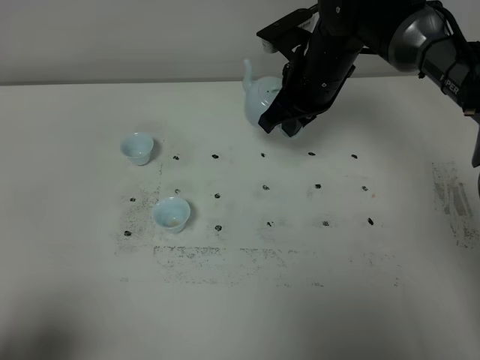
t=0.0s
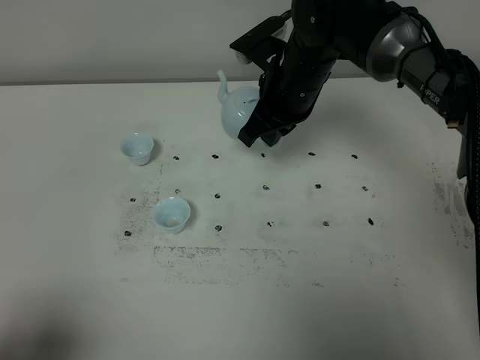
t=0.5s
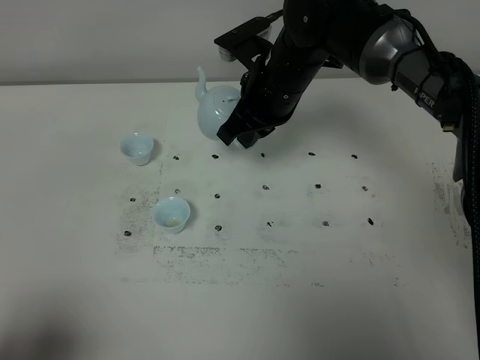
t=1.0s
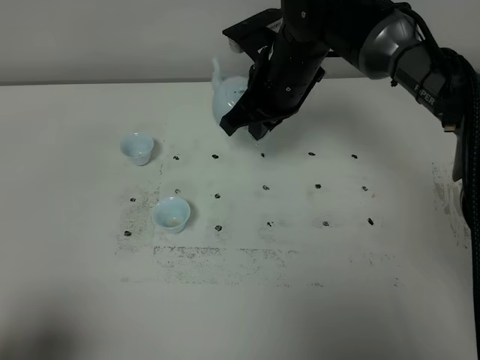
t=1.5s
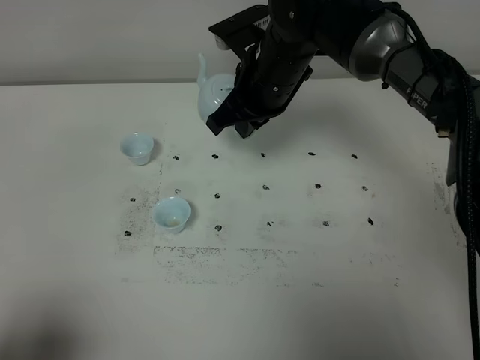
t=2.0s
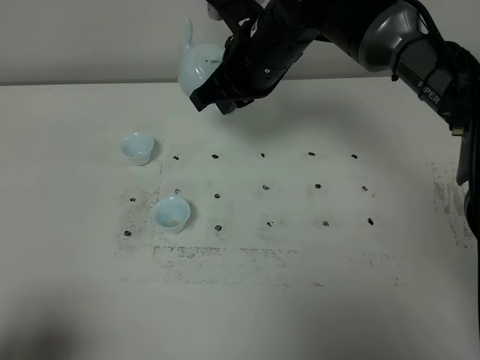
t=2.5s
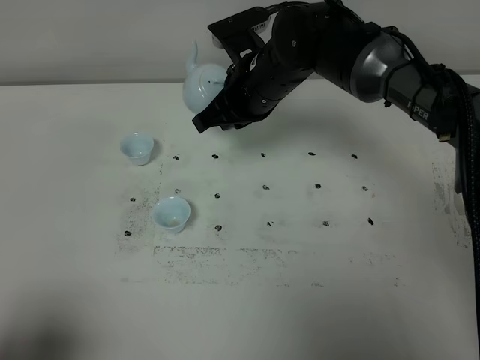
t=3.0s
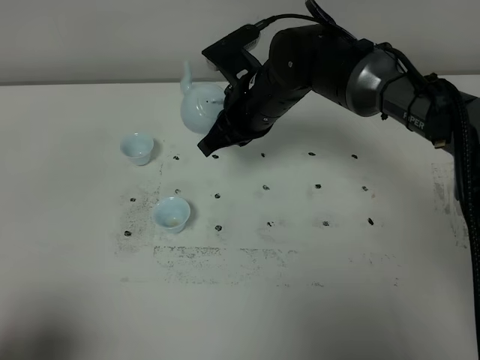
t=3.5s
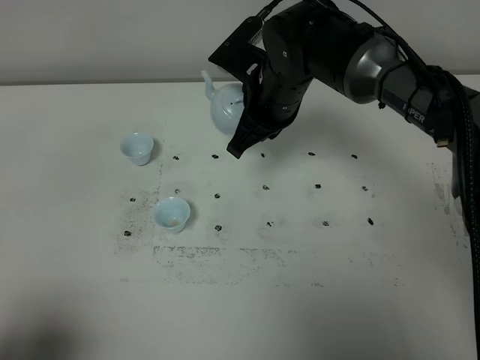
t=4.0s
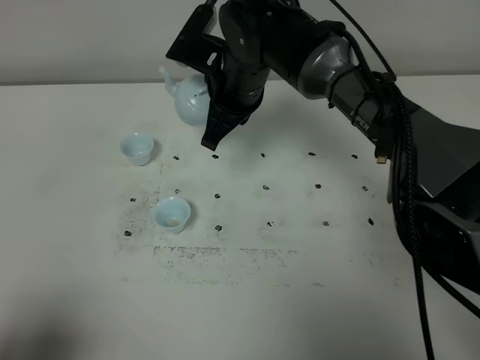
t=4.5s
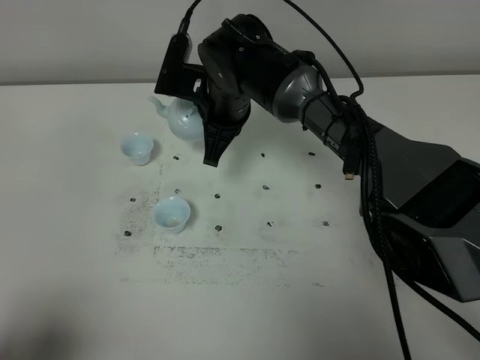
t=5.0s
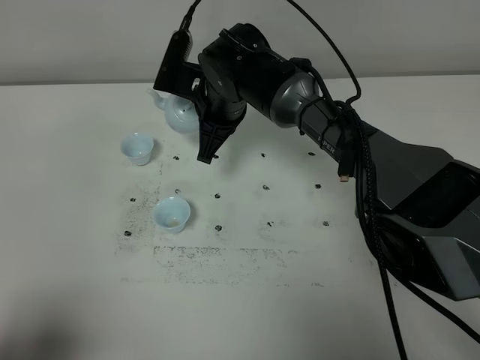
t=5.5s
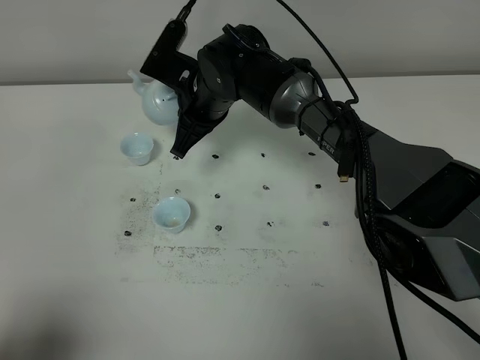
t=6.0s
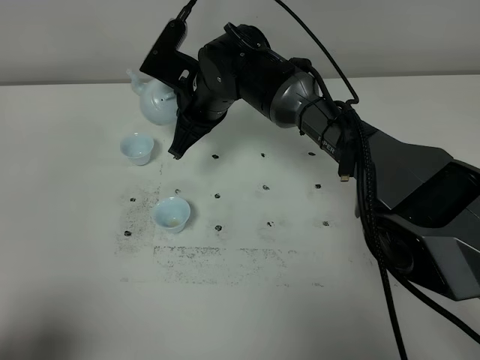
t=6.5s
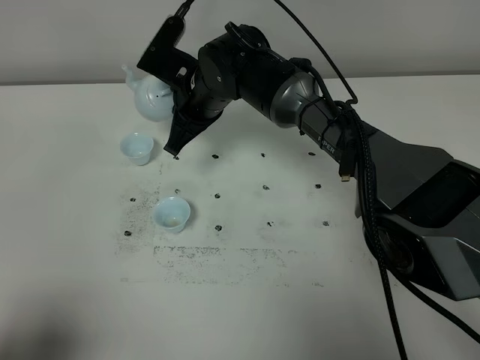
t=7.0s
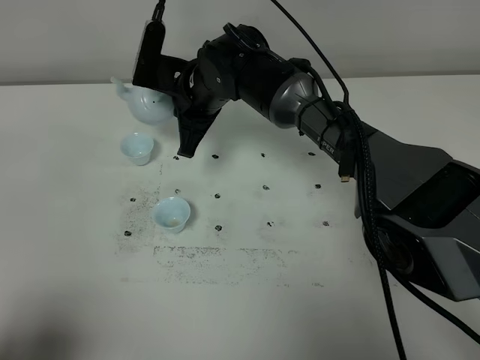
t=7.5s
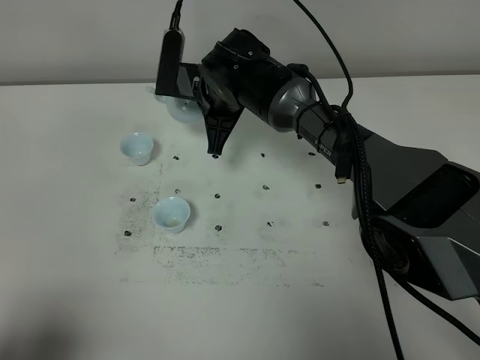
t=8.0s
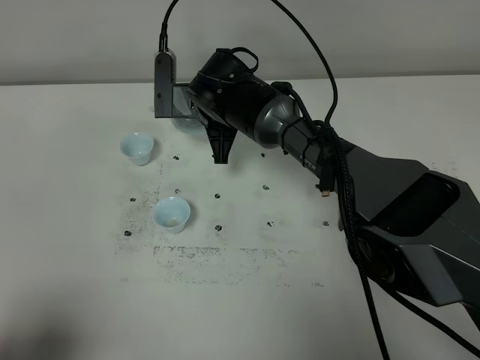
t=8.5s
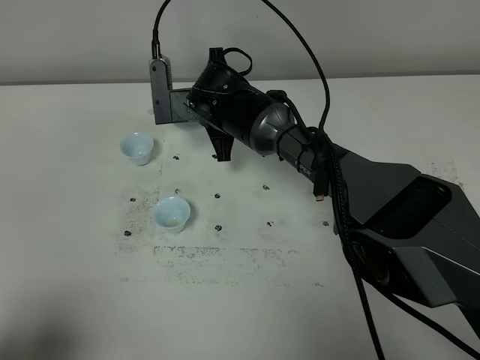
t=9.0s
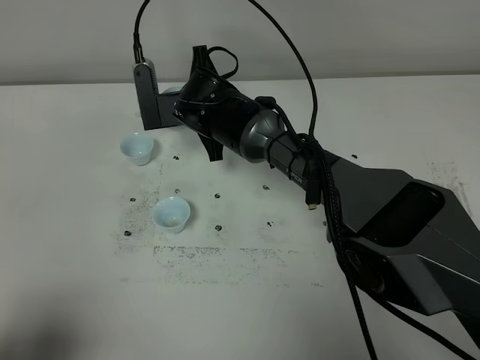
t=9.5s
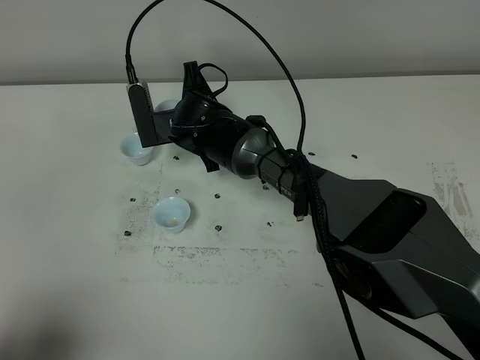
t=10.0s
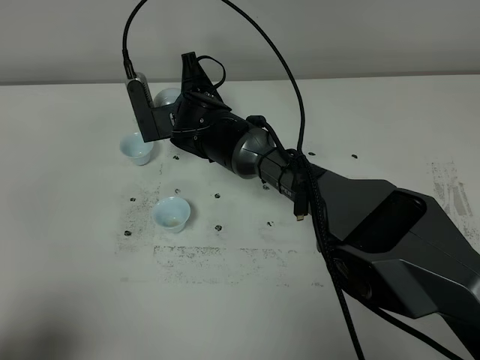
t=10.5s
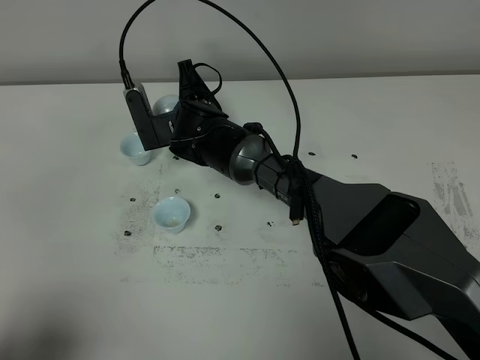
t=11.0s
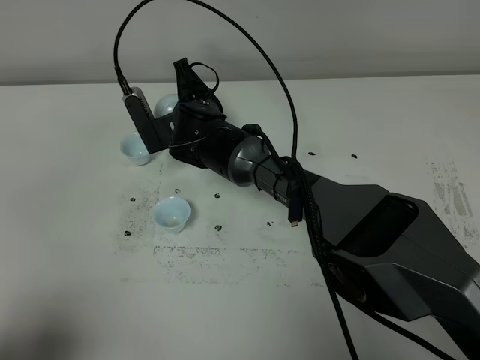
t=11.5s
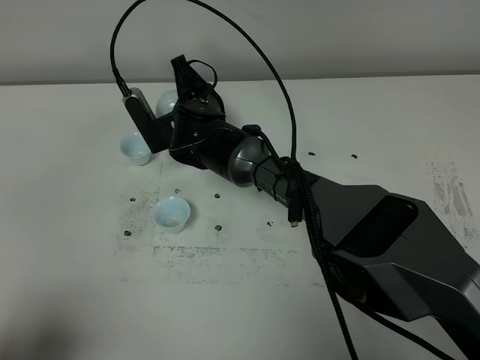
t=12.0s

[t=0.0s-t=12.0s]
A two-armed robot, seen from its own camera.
Task of the whole recording: grasp the blue porcelain teapot and pour the tea into the two blue porcelain teacups one by one, put the blue porcelain teapot back in its original place.
t=0.0s to t=2.0s: The right gripper travels to the left by approximately 5 cm.
t=2.0s to t=4.0s: The grippers stay close to where they were, moving slightly.
t=4.0s to t=6.0s: The right gripper moves to the left, approximately 10 cm.
t=8.0s to t=10.0s: The right gripper travels downward by some 5 cm.
t=10.0s to t=12.0s: The grippers make only small movements.

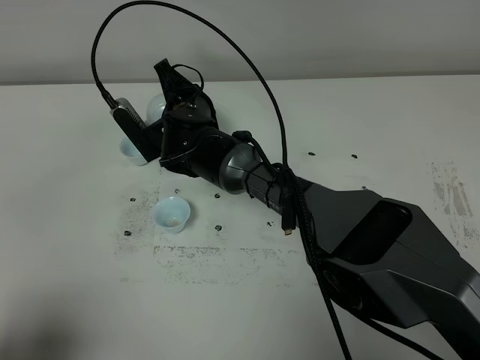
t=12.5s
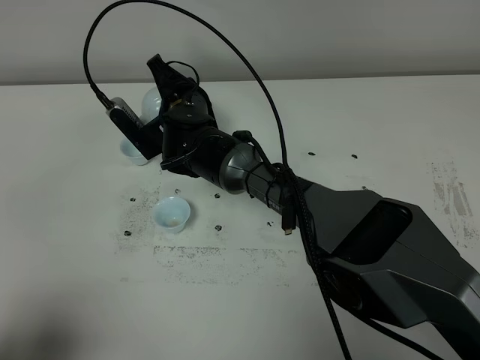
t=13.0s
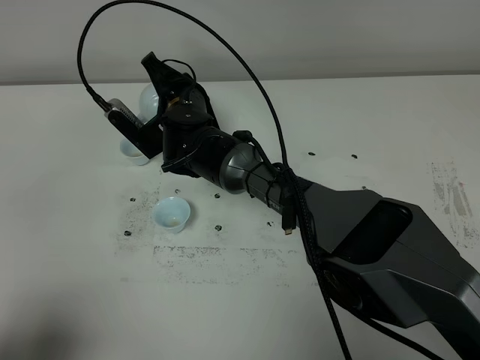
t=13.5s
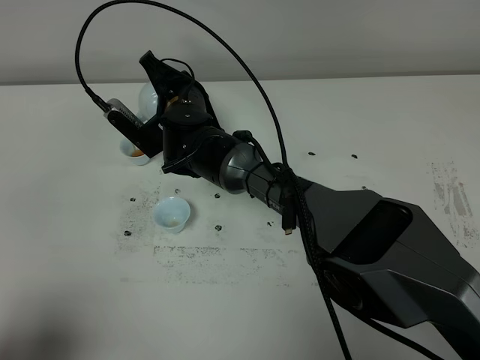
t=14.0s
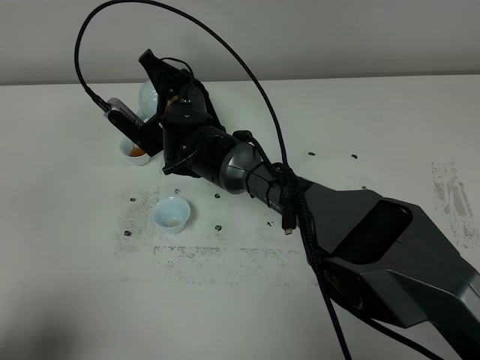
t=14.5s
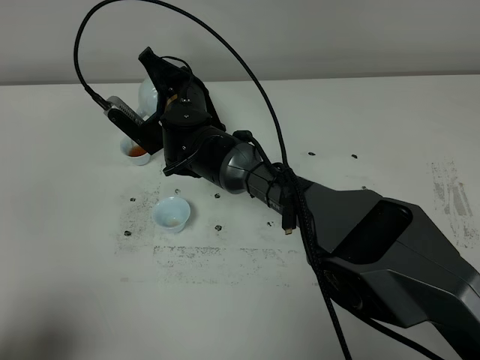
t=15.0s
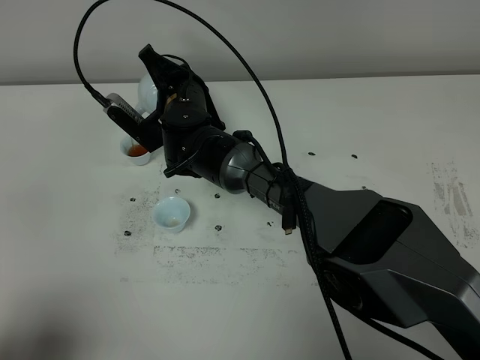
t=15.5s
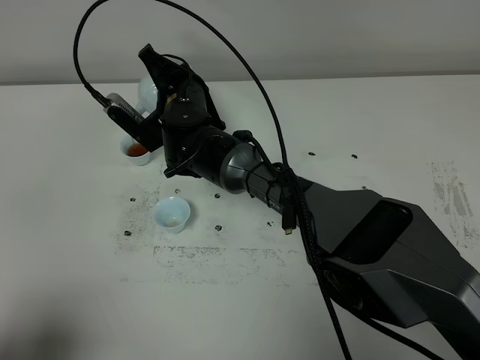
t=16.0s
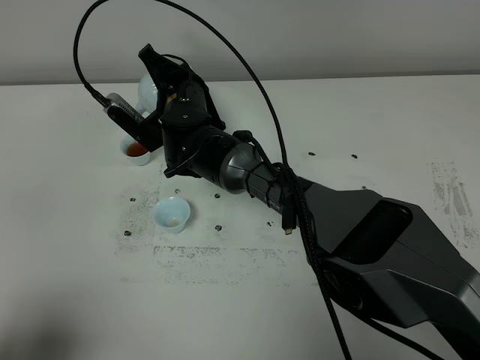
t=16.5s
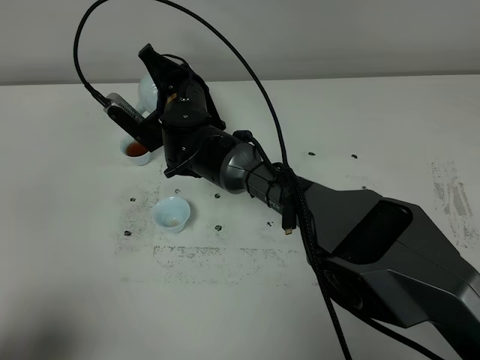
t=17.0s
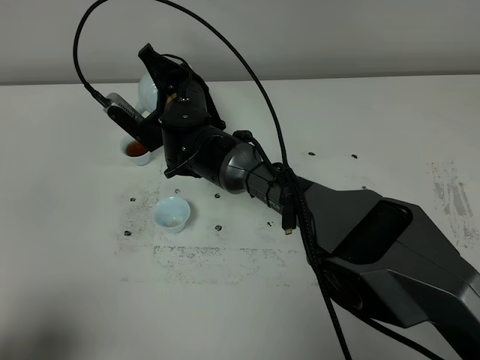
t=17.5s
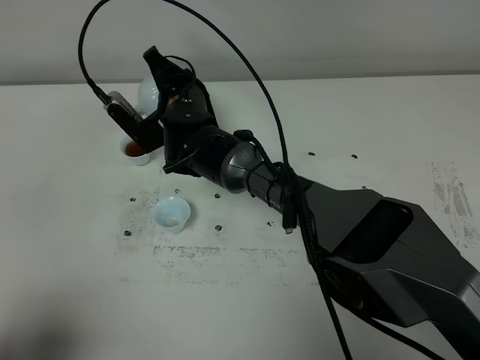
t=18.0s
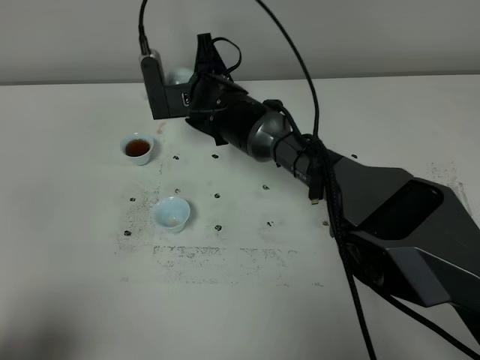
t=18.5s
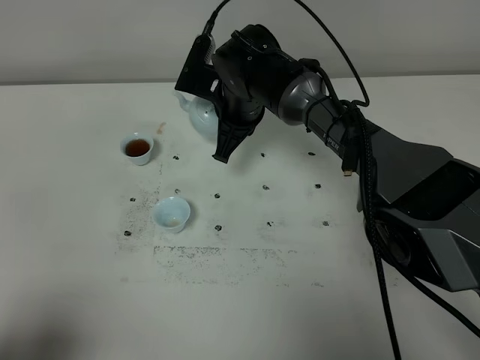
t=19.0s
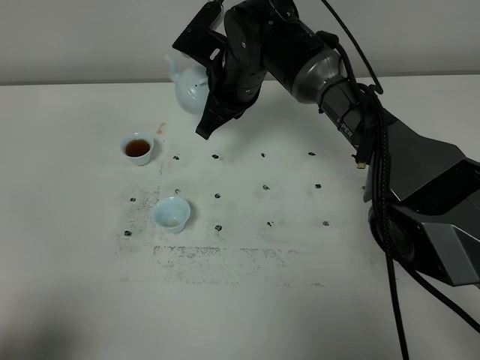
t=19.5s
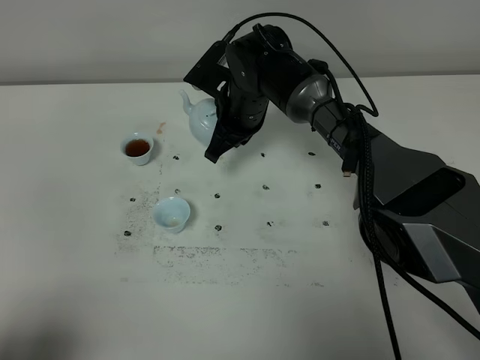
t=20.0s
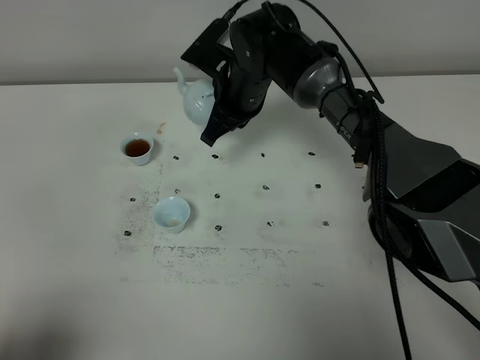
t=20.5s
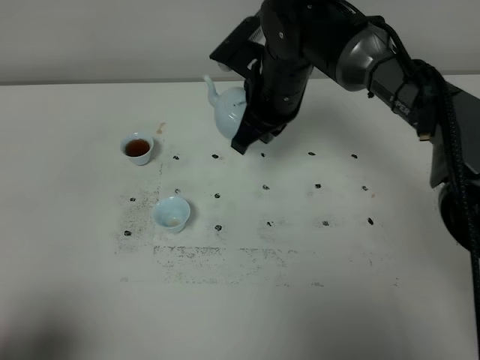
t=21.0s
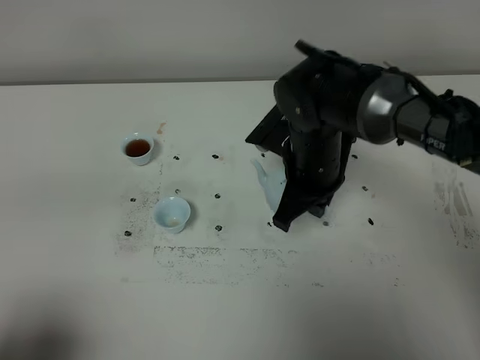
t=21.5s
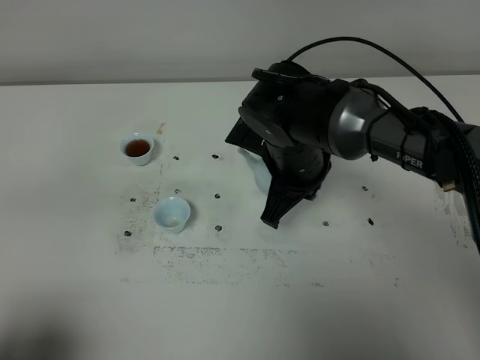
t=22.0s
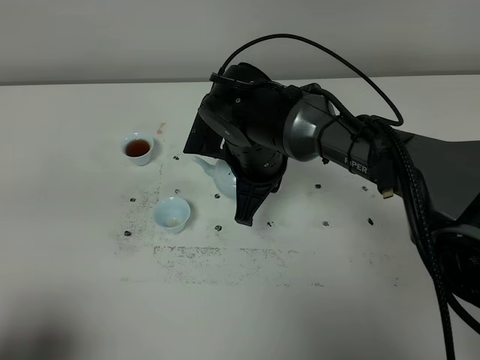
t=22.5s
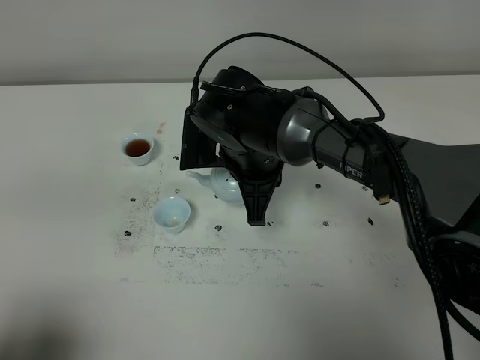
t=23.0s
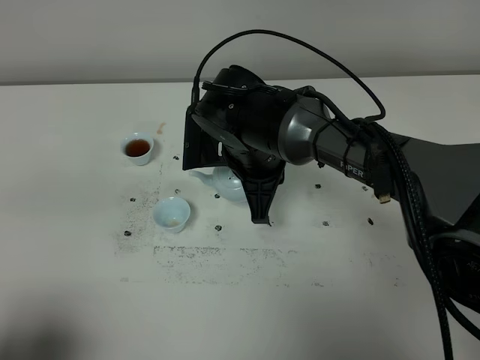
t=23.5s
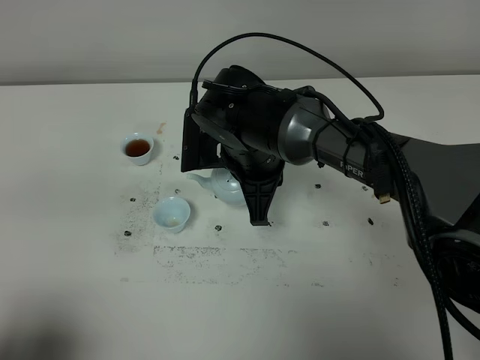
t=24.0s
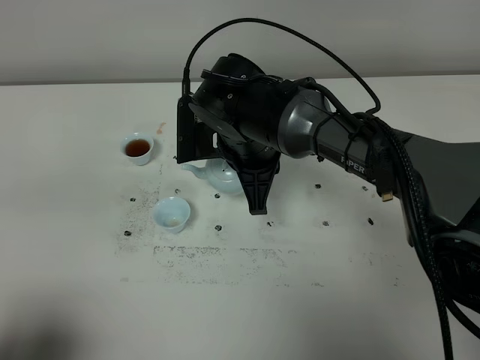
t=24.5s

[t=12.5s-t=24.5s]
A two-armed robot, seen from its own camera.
Task of the whole recording: grasp the blue porcelain teapot and pour the tea into the two blue porcelain teacups one by one, put the blue porcelain teapot back in its original place.
t=12.5s to t=14.5s: The grippers stay close to where they were, moving slightly.
t=14.5s to t=16.5s: Both grippers stay put.
t=18.5s to t=20.5s: The right gripper goes up and down, roughly 5 cm each way, reversing 2 times.
t=20.5s to t=22.5s: The right gripper heads backward, covering roughly 10 cm.
t=22.5s to t=24.5s: The grippers stay close to where they were, moving slightly.

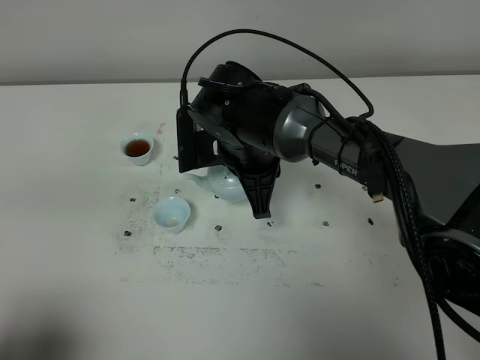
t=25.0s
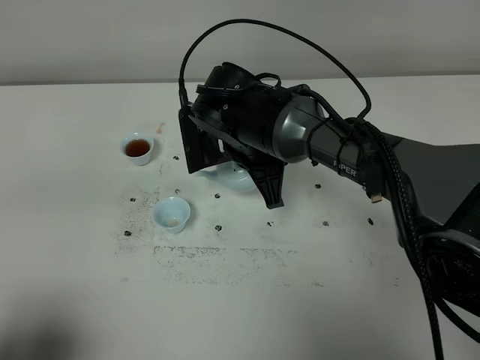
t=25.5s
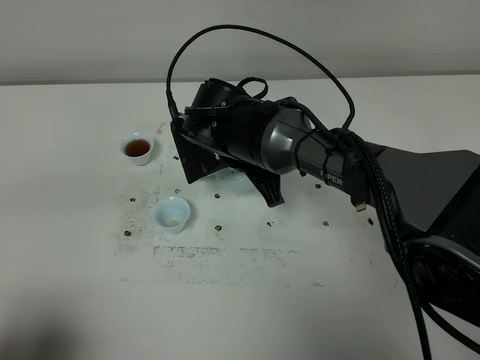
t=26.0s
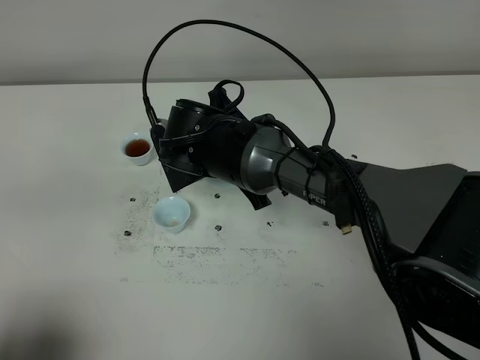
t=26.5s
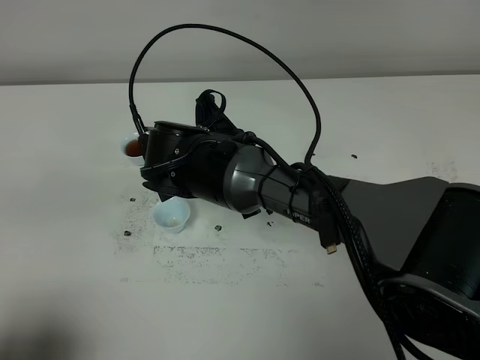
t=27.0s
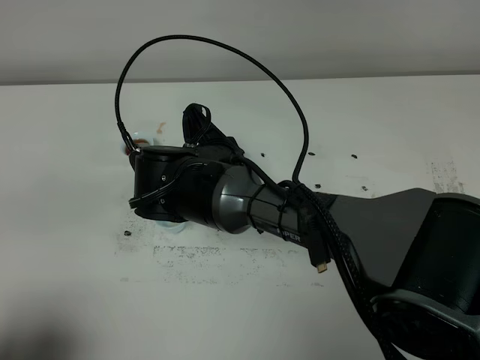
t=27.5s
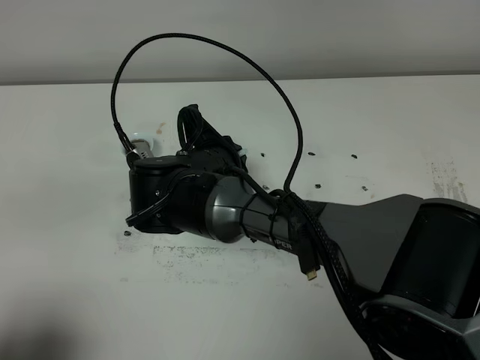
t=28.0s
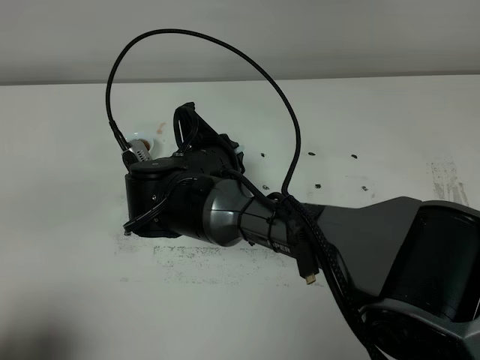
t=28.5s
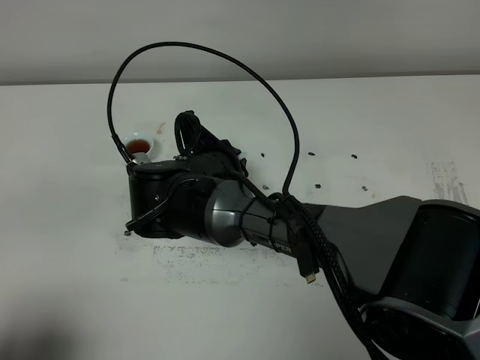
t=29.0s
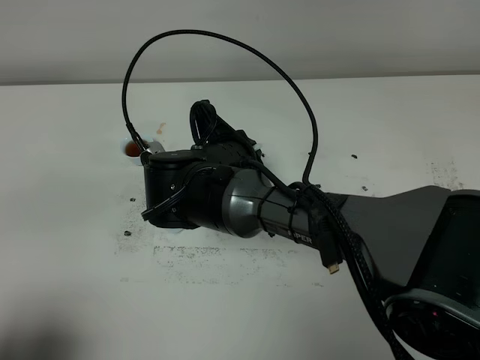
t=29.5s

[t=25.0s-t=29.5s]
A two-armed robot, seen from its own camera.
Task of the whole recording: grasp the blue porcelain teapot and pour the tea into the two blue porcelain teacups one by one, put the blue porcelain teapot back in its original place.
t=27.0s to t=29.5s: The grippers make only small movements.
